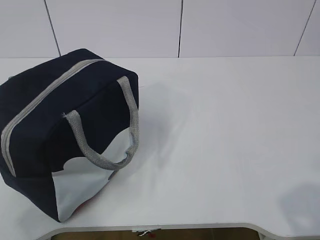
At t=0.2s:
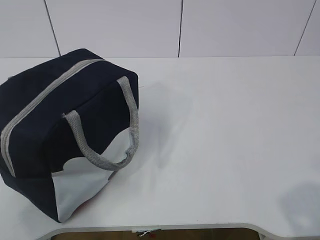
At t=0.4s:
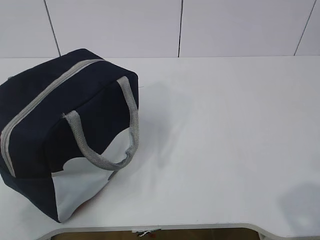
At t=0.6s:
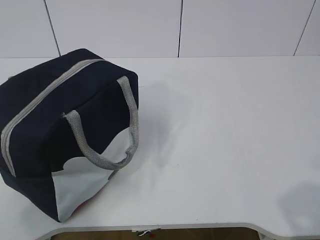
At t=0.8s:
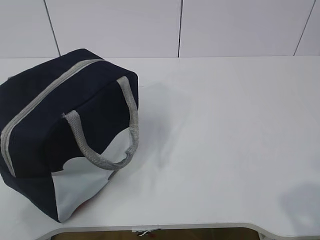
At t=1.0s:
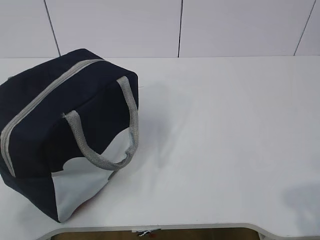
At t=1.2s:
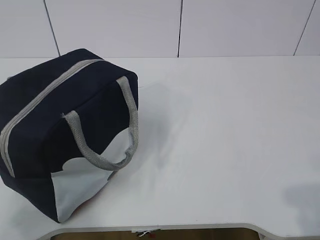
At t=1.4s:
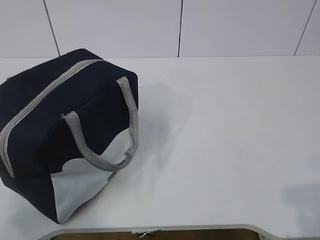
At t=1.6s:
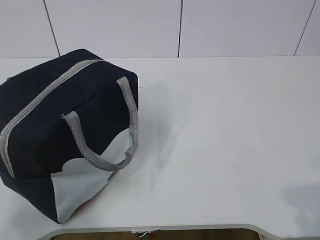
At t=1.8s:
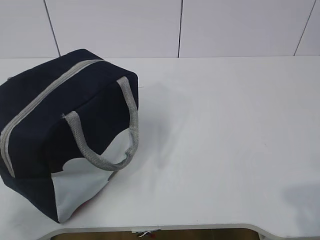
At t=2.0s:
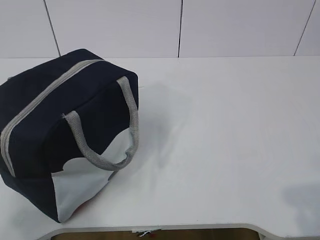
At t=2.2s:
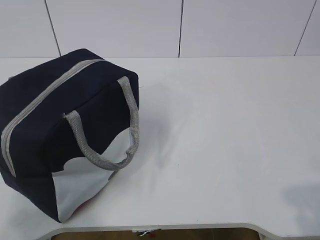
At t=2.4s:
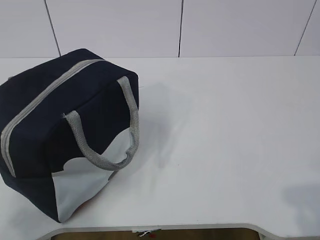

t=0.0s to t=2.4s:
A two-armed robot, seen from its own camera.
t=0.0s to t=1.2s: There are only small adjustments of the grippers.
t=1.2s to t=2.4s: Neither gripper changes place.
